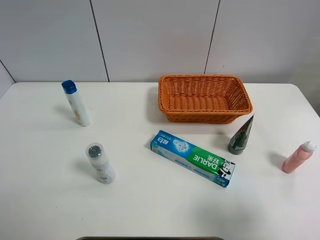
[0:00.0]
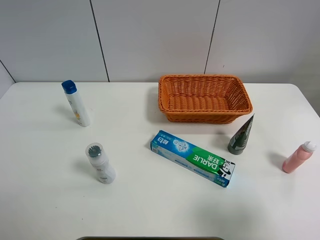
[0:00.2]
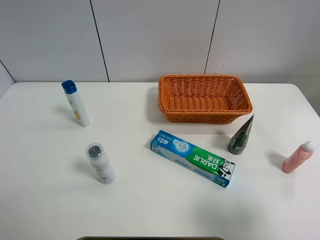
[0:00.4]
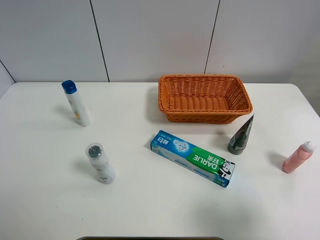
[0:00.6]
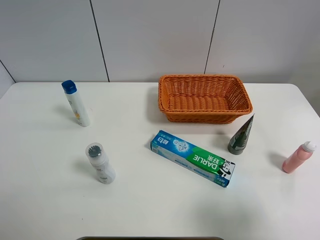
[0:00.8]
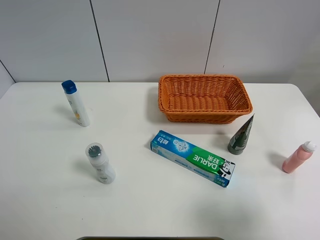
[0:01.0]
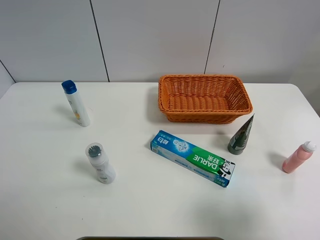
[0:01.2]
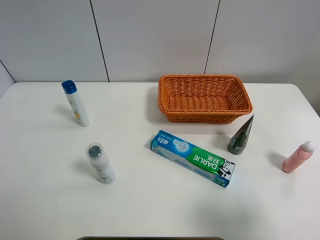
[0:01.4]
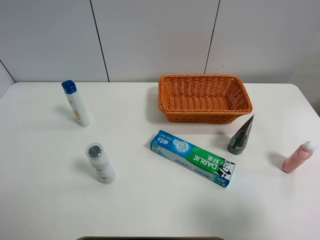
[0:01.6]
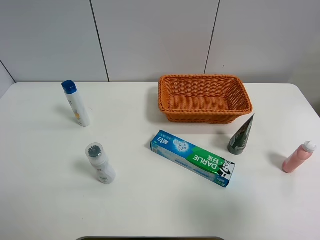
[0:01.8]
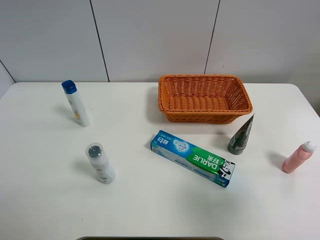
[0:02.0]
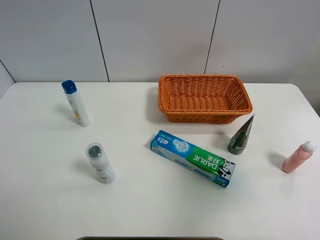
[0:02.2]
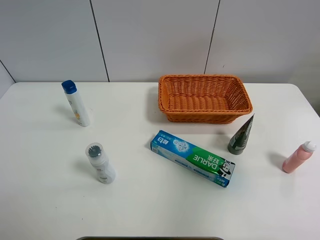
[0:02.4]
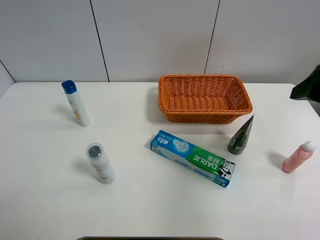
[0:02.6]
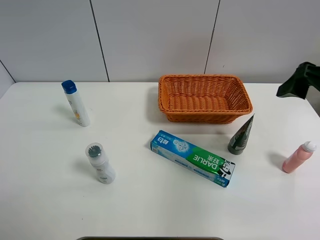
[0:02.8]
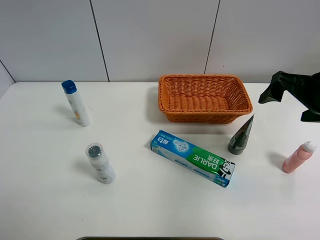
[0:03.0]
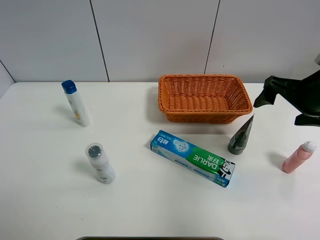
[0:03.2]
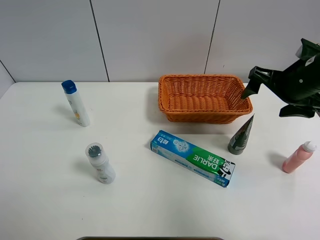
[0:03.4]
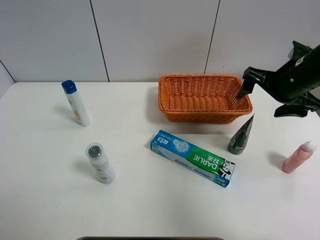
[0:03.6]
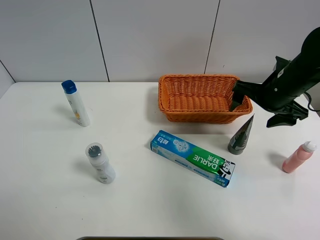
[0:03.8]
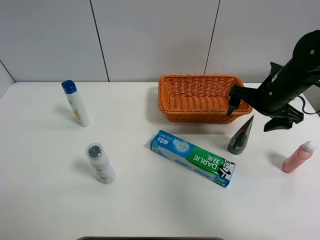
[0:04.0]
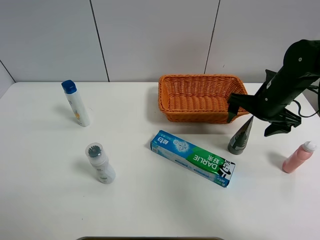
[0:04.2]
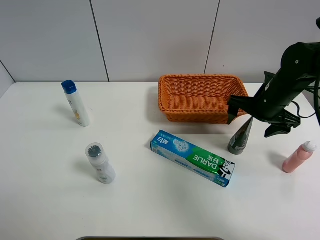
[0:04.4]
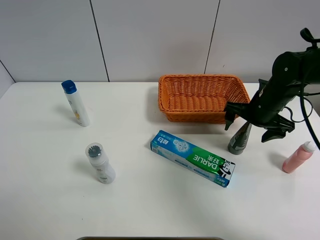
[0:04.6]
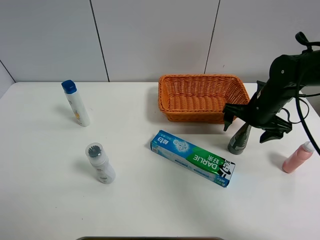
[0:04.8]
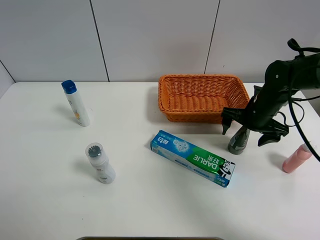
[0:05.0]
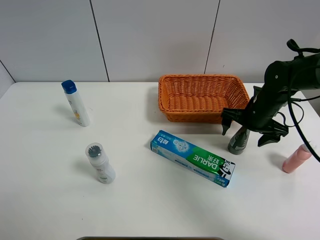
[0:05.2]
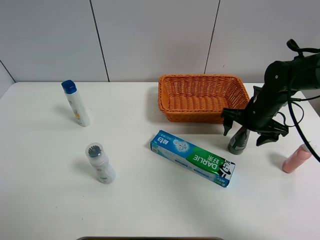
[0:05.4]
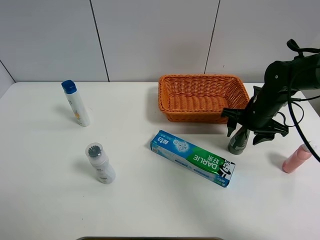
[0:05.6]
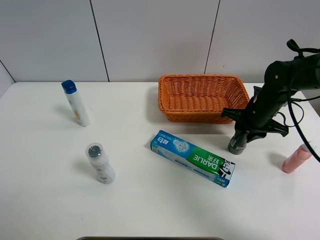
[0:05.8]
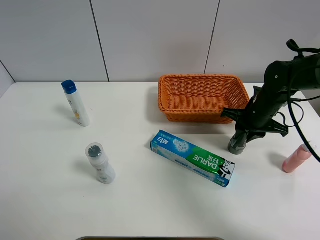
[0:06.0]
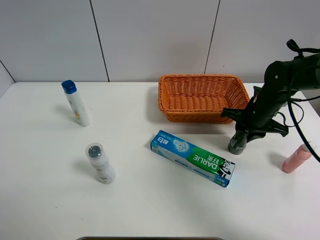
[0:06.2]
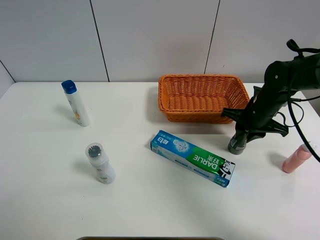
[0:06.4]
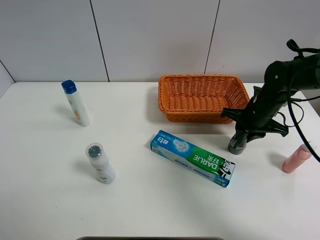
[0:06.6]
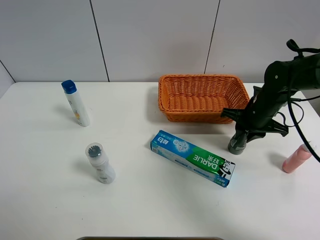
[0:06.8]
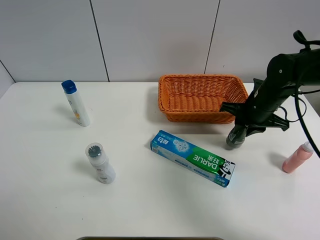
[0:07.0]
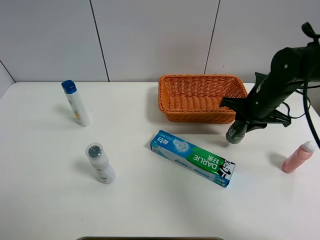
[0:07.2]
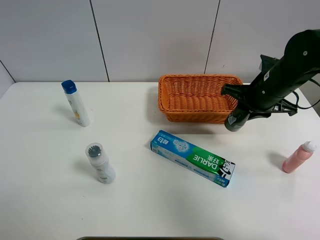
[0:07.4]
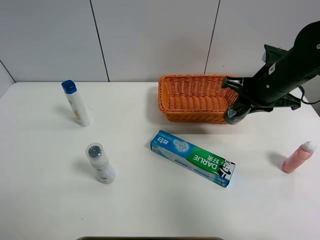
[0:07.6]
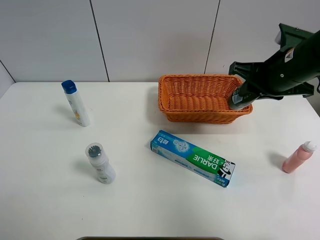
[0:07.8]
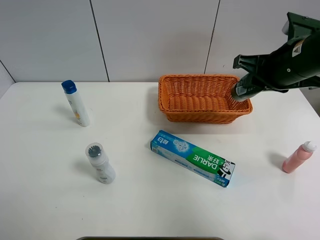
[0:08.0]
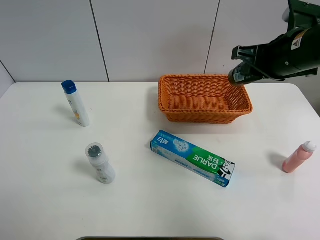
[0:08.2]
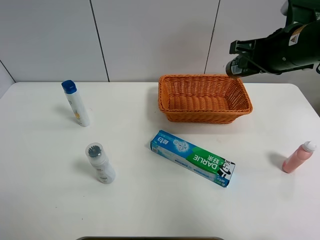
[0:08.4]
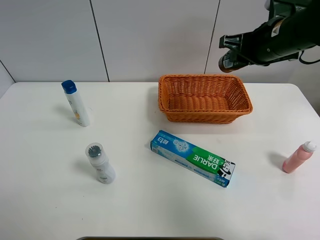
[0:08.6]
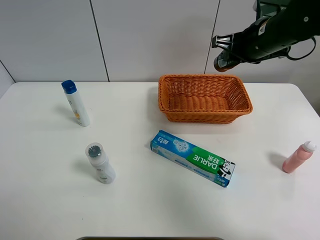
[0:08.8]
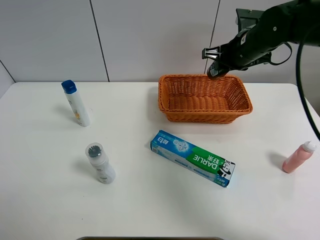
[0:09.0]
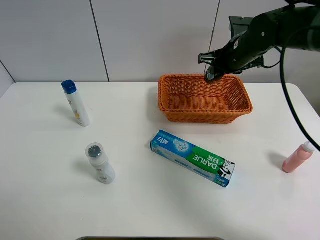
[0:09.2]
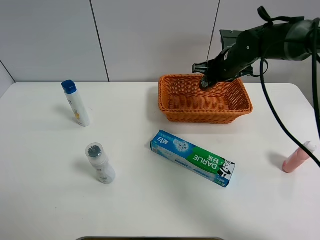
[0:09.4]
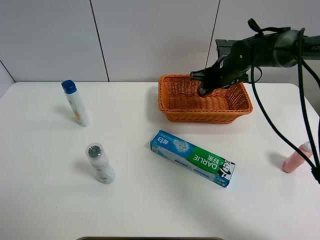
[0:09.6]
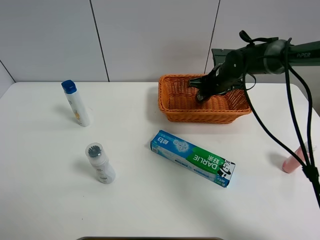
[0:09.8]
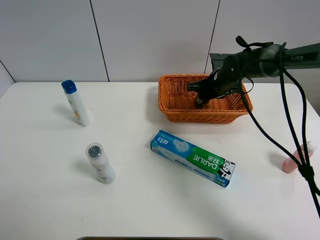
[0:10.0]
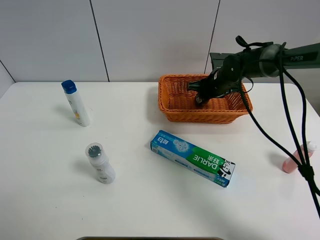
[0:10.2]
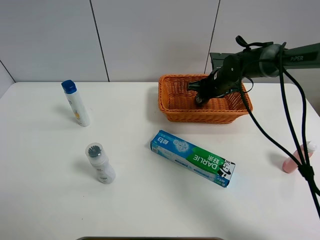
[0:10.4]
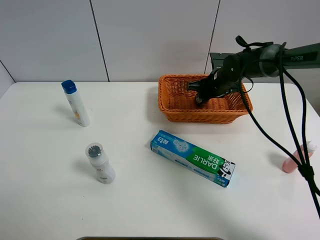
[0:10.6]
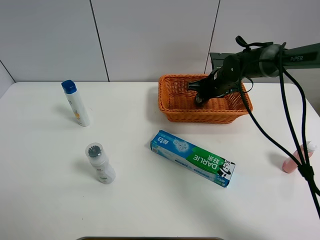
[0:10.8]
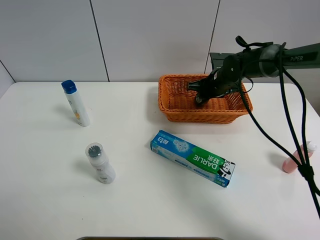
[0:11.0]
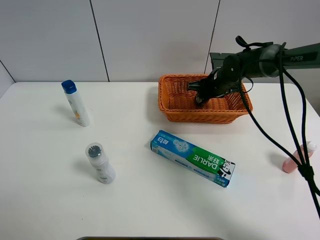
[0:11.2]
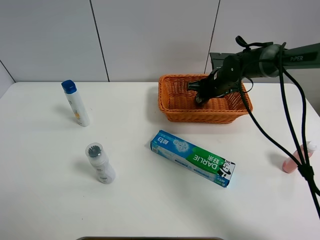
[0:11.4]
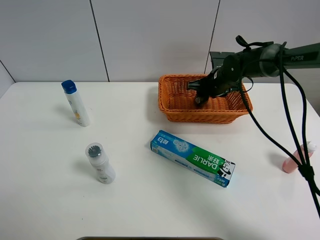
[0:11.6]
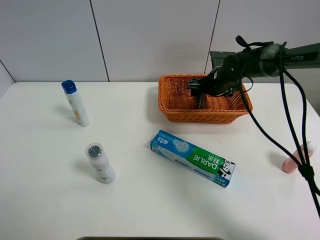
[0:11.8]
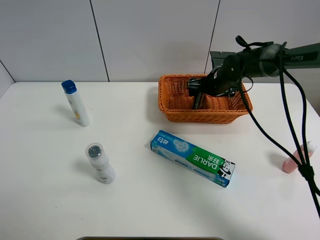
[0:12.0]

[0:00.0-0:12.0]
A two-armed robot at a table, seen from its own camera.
Task of the whole recording: Place the object closest to the toothpaste in the basket.
Step, 0:00.0 to 0:06.0: Grasp the soft facial cleanser with right gripper.
0:00.0 to 0:01.6: The two grippers keep their place.
0:01.6 to 0:03.0: The right gripper travels forward by about 25 cm.
0:03.0 to 0:04.4: The right gripper moves downward and forward, about 15 cm.
0:04.4 to 0:06.0: The right gripper closes its fingers.
0:06.0 to 0:07.6: The right gripper travels upward by approximately 10 cm.
0:07.6 to 0:09.0: The right gripper moves forward, roughly 10 cm.
0:09.0 to 0:10.4: The right gripper travels downward by some 10 cm.

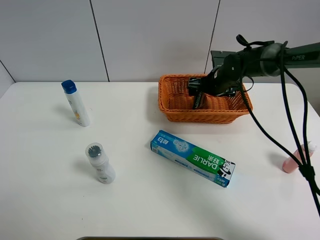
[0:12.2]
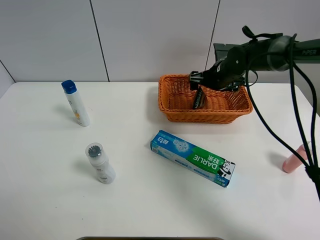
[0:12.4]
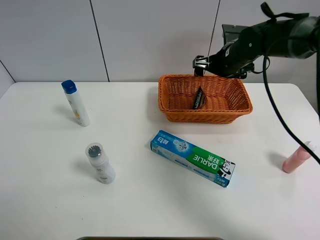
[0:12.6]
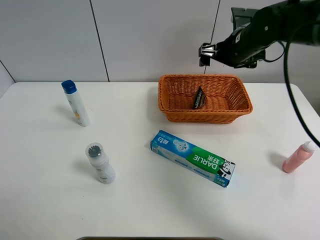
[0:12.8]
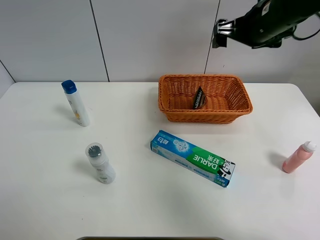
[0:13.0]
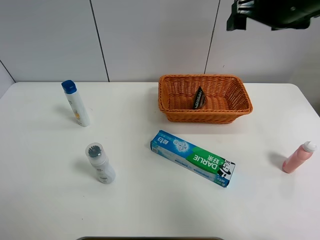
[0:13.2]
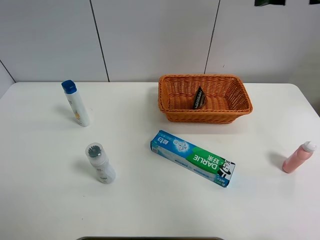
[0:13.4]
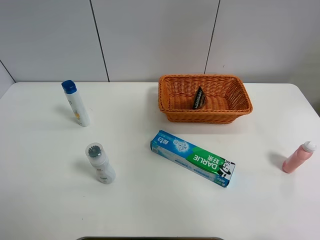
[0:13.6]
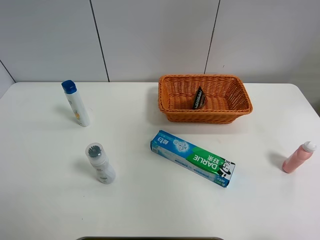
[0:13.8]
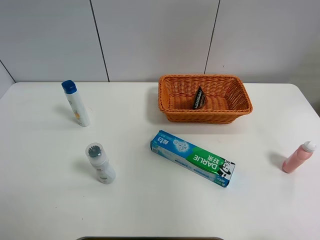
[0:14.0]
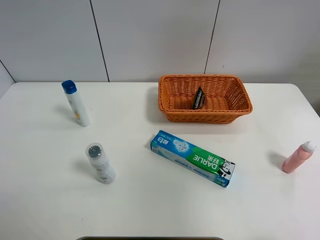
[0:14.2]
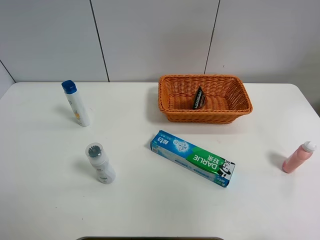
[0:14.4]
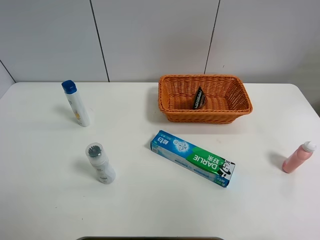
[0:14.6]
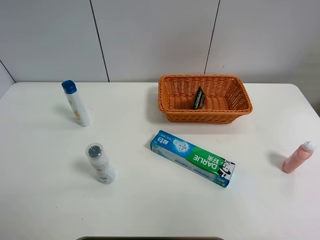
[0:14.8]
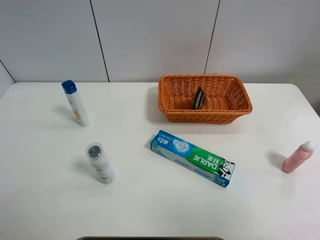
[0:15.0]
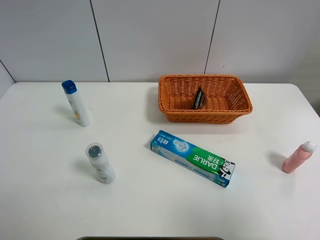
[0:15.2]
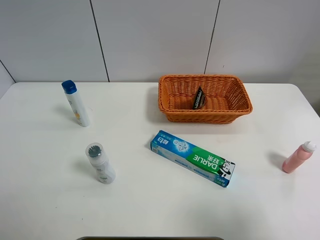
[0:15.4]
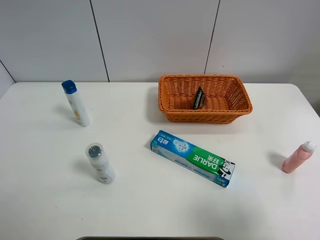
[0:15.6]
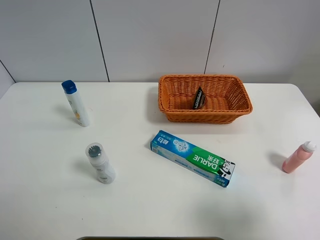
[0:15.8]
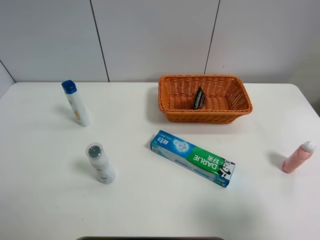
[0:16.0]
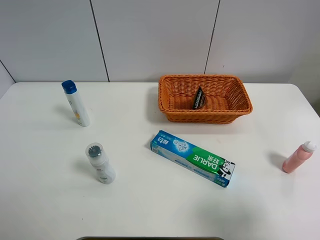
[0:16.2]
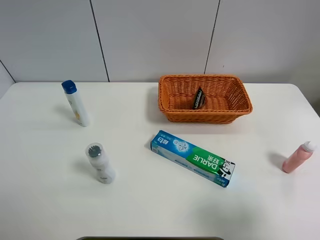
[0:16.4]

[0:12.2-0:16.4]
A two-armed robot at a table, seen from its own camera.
Task of the whole recording: Place the object closest to the toothpaste in the basket.
0:12.2 to 0:13.6: The right gripper shifts roughly 40 cm upward and backward.
0:13.6 to 0:15.0: The right gripper travels backward by approximately 25 cm.
0:15.0 to 0:16.4: The right gripper is displaced downward by approximately 10 cm.
